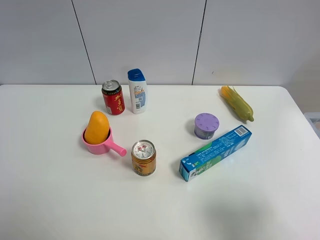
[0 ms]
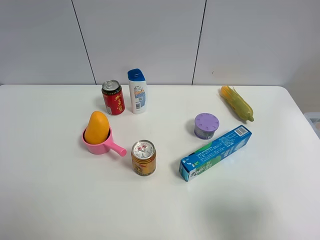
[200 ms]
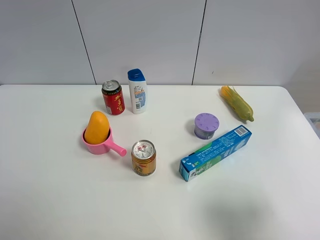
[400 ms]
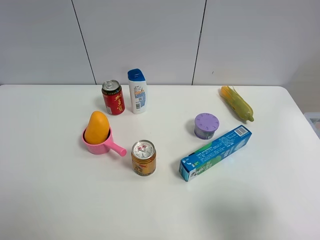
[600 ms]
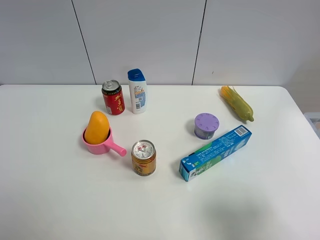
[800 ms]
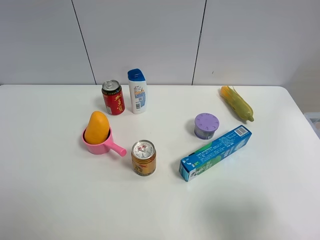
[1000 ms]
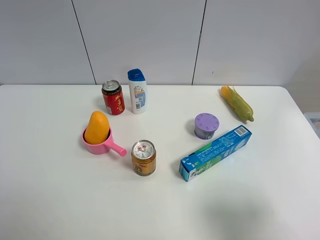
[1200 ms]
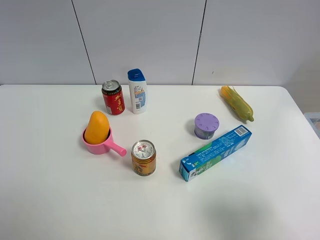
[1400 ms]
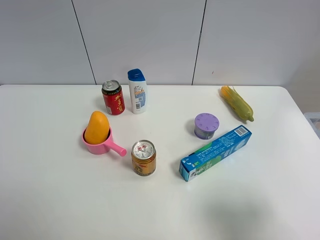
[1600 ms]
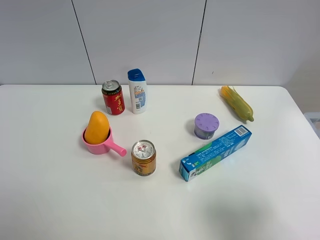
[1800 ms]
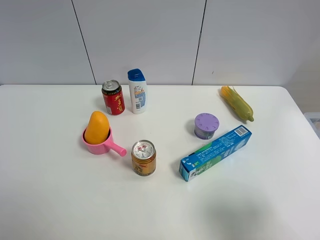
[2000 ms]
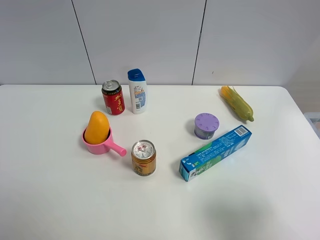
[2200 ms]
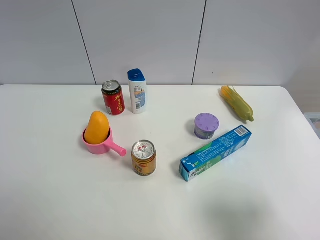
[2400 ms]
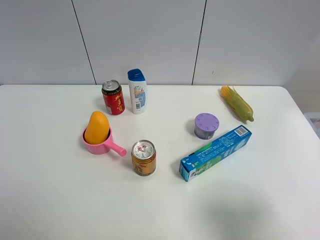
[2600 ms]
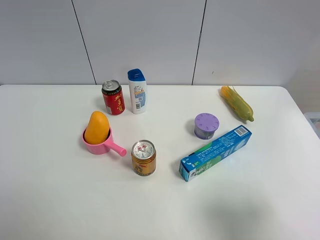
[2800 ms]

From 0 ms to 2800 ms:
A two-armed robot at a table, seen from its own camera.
Task of the whole recording: the gripper move the object.
From 1400 ms to 2800 ms: Neither gripper changes place.

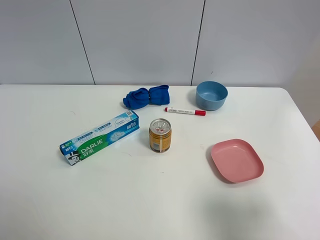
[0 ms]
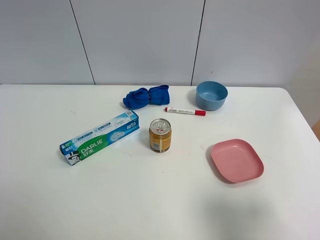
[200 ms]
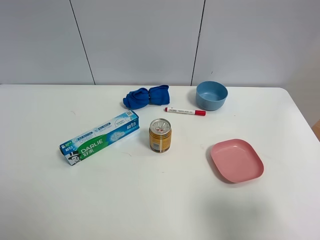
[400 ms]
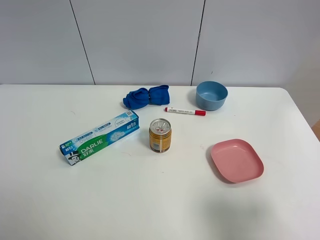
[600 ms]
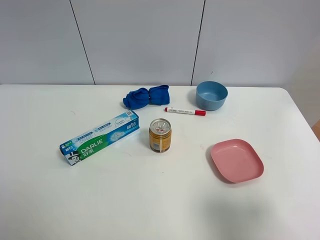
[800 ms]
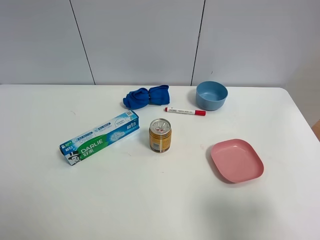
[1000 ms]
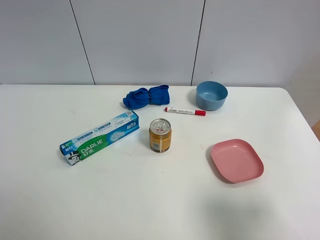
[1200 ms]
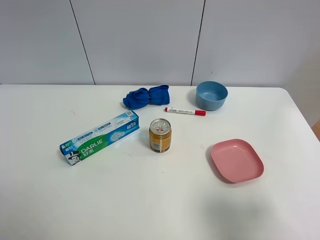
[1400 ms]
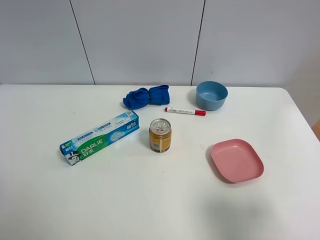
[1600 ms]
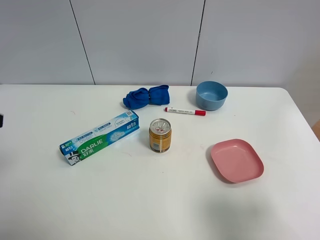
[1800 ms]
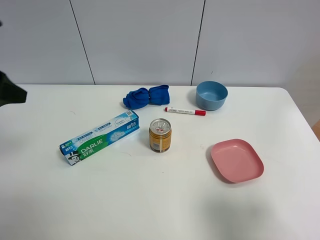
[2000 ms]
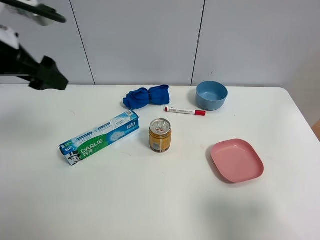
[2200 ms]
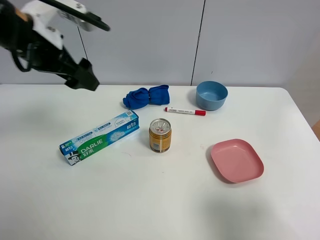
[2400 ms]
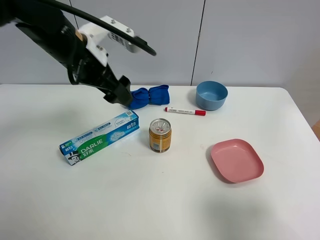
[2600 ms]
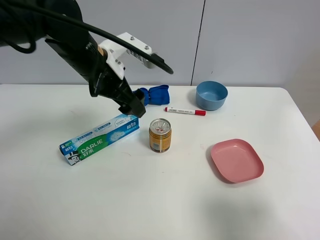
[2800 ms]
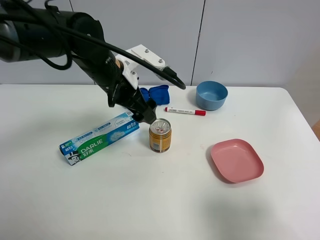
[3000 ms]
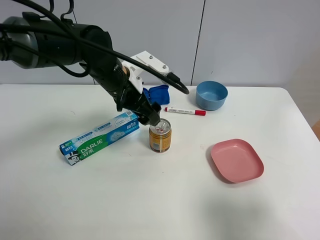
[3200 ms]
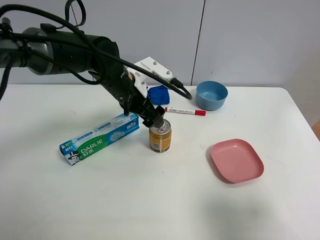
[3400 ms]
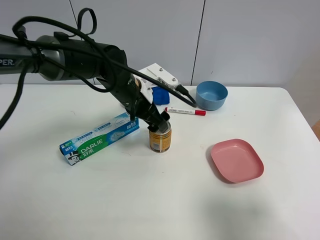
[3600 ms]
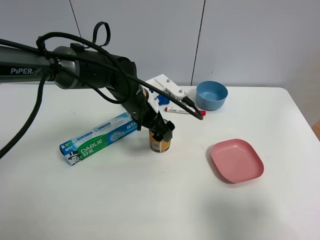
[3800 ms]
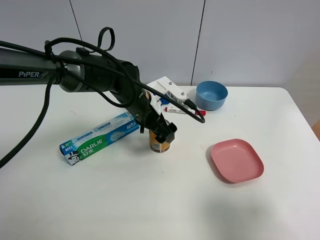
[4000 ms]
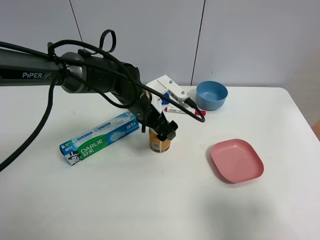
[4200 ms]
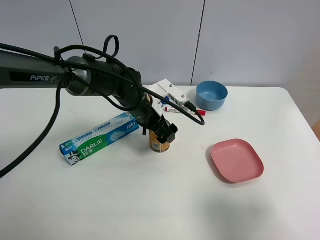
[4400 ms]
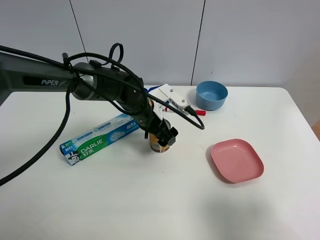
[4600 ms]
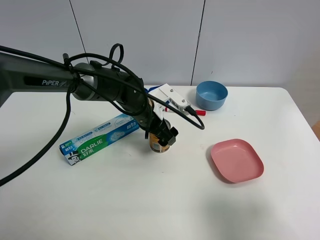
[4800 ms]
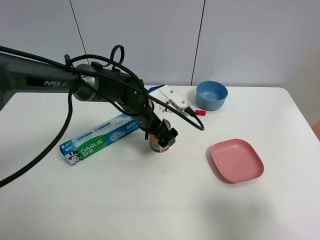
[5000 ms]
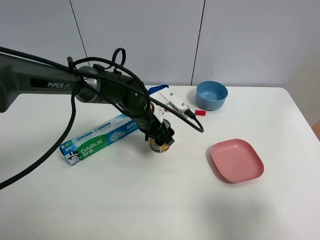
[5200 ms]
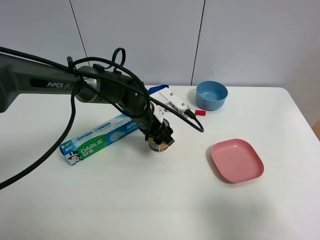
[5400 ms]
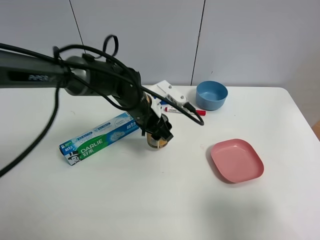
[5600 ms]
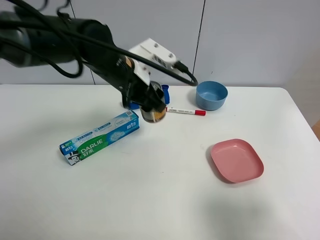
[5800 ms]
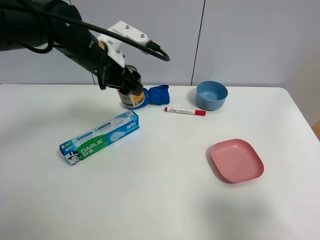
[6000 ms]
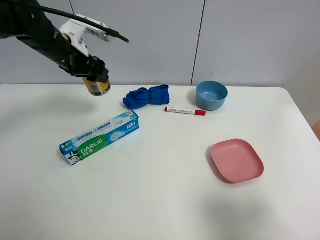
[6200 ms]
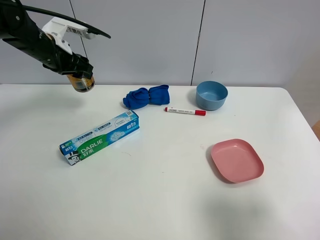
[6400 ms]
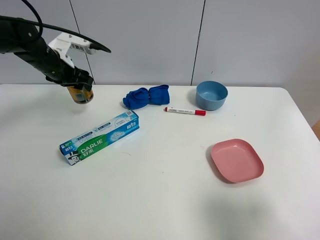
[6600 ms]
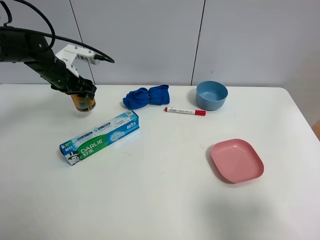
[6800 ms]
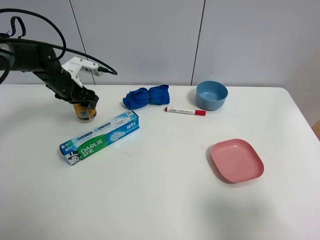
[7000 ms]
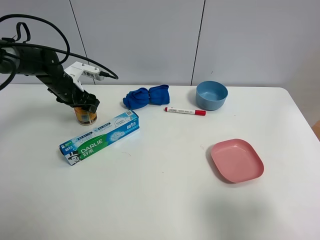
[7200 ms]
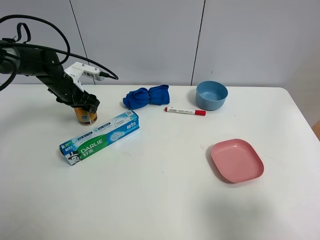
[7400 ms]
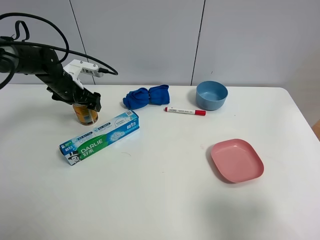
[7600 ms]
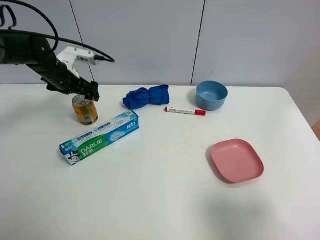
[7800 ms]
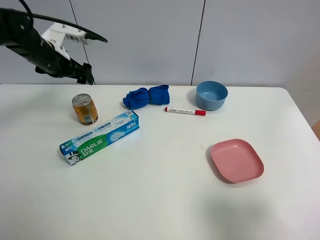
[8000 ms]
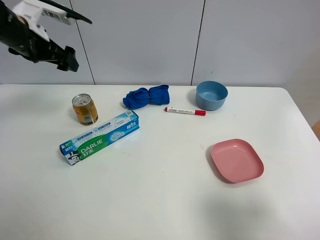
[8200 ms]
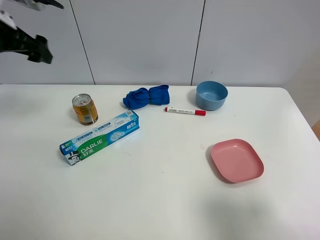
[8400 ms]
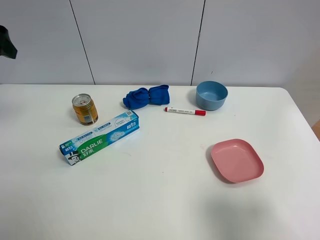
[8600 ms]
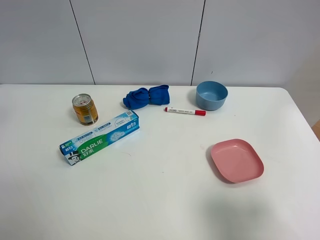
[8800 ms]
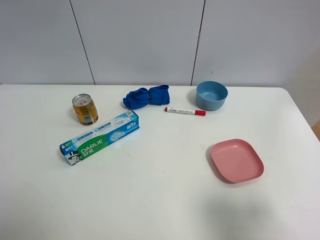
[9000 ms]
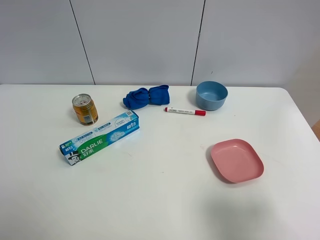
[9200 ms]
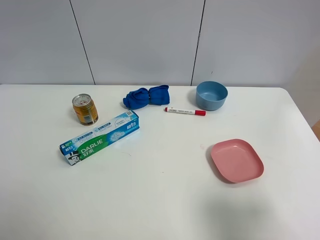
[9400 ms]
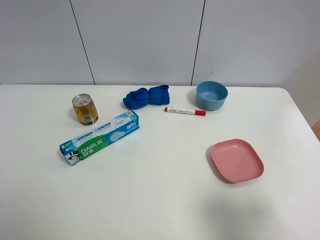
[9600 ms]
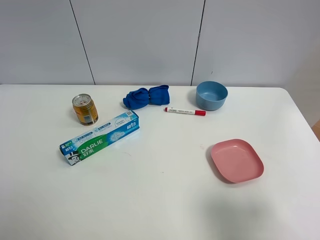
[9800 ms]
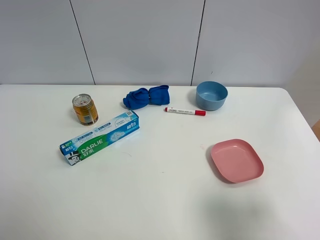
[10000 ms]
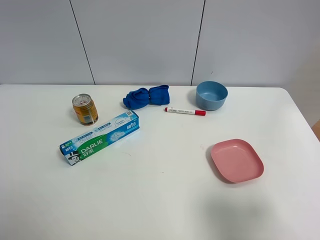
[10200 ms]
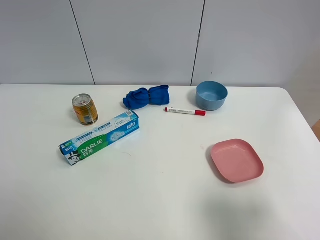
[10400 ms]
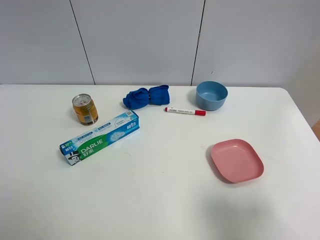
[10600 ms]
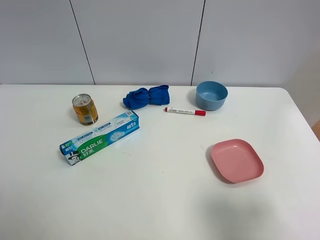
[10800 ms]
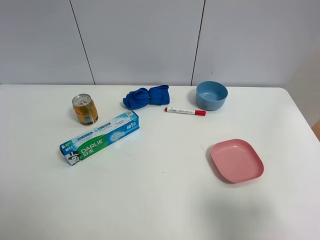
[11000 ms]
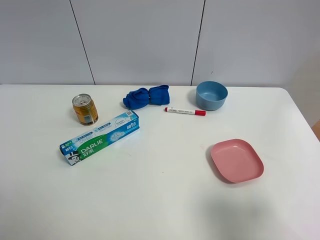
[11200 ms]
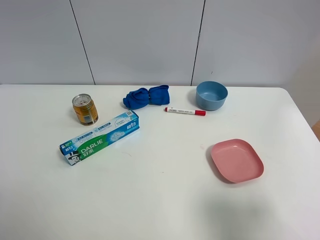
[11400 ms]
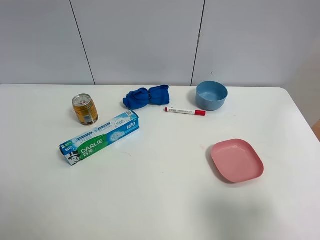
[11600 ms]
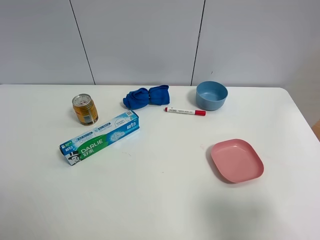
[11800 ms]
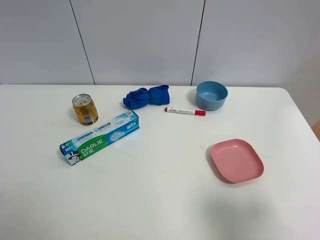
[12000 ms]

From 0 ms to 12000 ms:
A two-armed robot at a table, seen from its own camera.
Task of the whole recording: the gripper move the object.
Step, from 0 ms to 5400 ms: Grasp the red bull with the left gripper.
Step, from 5600 ms to 7600 ms: Place the red bull on the table with the left gripper.
From 1600 ms to 3000 ms: The left gripper moves forward and to the right, about 35 cm.
From 3000 ms to 4400 ms: The left gripper goes approximately 10 cm downward.
From 4400 ms to 6000 ms: The left gripper heads upward and to the left, covering roughly 15 cm, and closes its fingers.
From 6000 ms to 7600 ms: The left gripper shifts some 20 cm to the left, downward and forward, and opens its fingers.
From 7600 ms to 9000 ms: The left gripper heads upward and backward, covering about 40 cm.

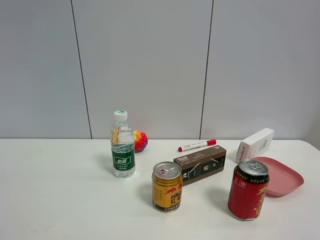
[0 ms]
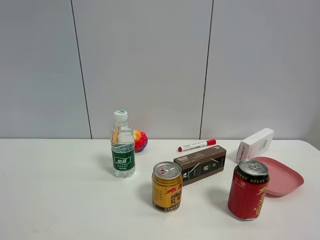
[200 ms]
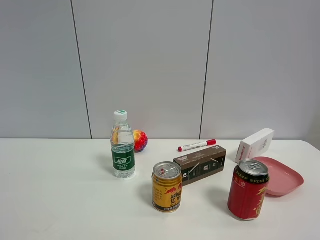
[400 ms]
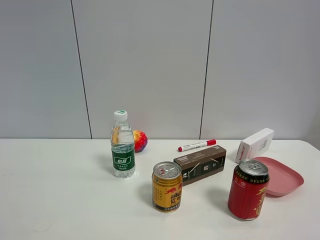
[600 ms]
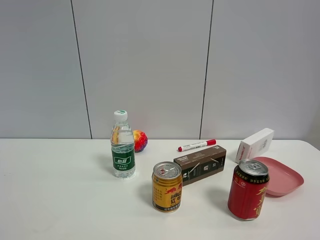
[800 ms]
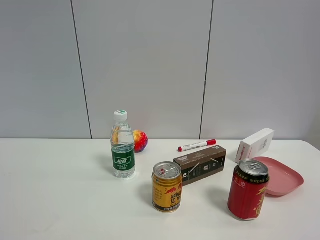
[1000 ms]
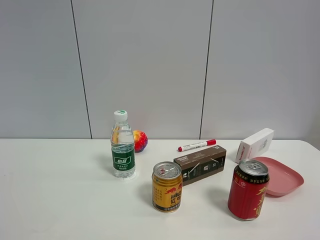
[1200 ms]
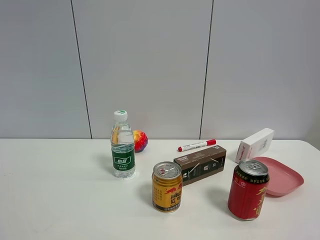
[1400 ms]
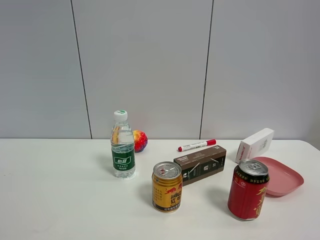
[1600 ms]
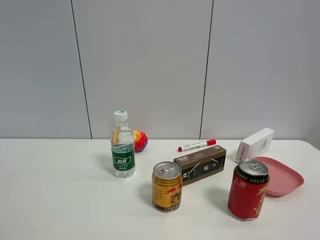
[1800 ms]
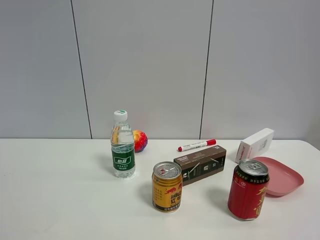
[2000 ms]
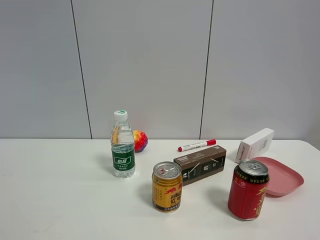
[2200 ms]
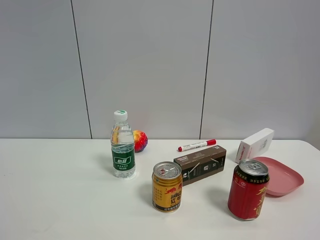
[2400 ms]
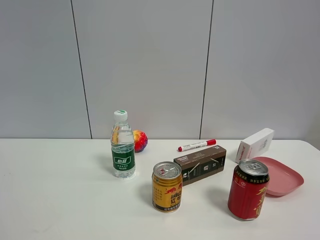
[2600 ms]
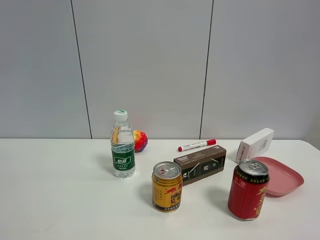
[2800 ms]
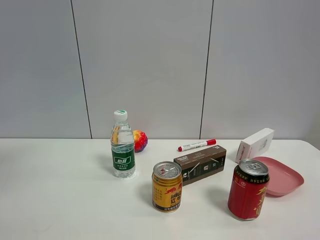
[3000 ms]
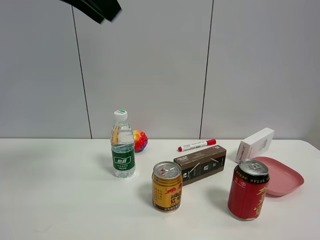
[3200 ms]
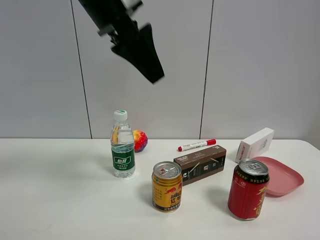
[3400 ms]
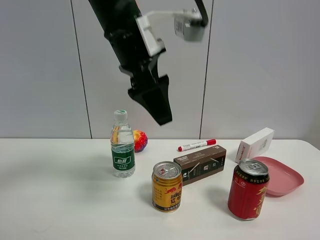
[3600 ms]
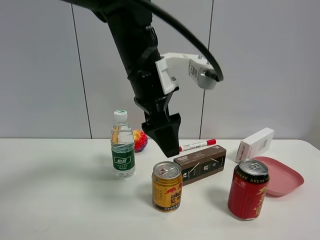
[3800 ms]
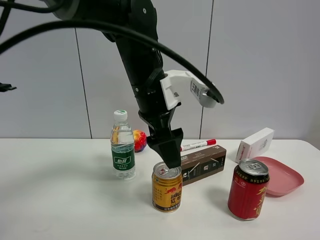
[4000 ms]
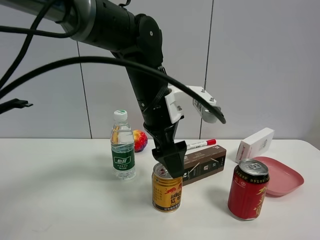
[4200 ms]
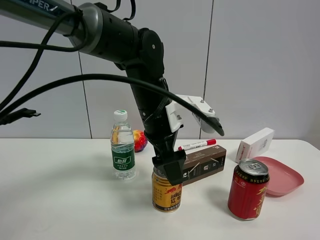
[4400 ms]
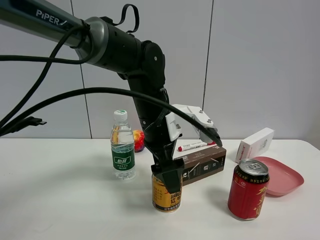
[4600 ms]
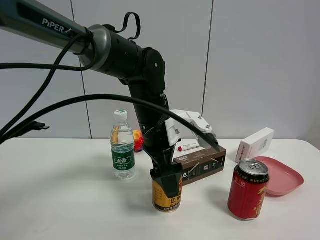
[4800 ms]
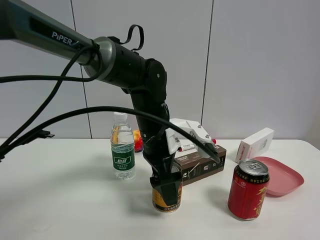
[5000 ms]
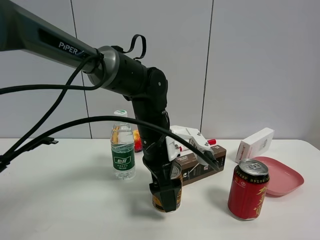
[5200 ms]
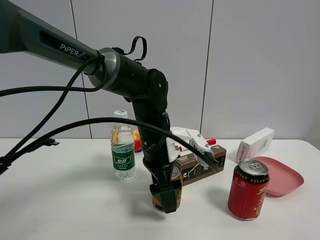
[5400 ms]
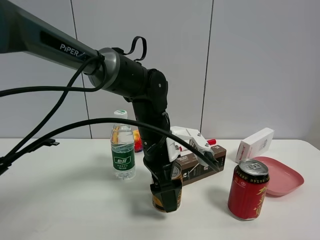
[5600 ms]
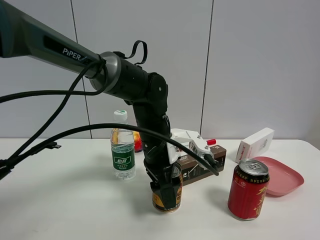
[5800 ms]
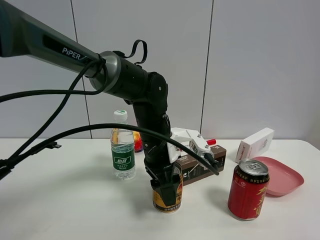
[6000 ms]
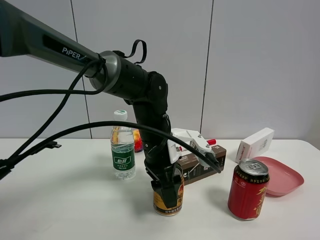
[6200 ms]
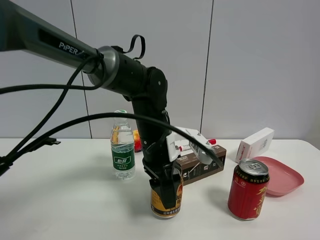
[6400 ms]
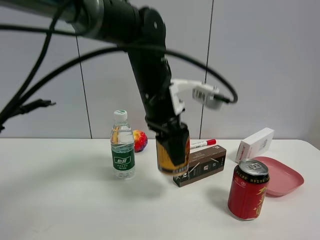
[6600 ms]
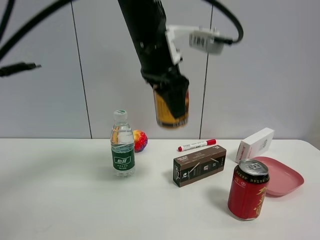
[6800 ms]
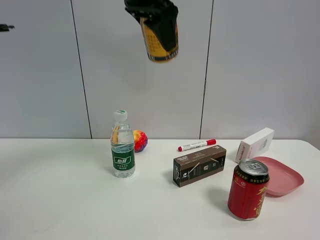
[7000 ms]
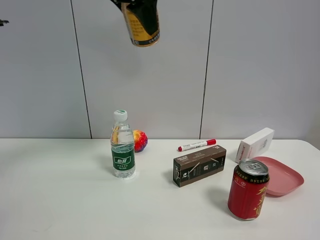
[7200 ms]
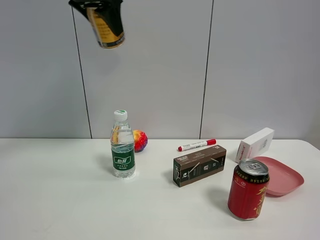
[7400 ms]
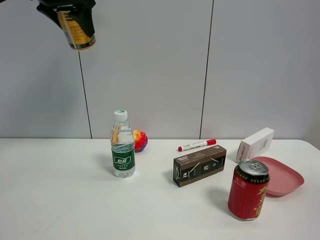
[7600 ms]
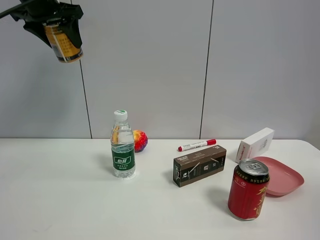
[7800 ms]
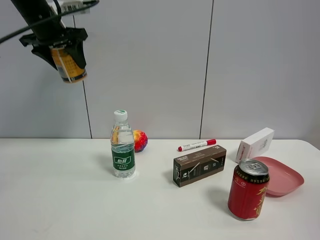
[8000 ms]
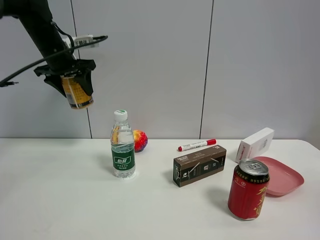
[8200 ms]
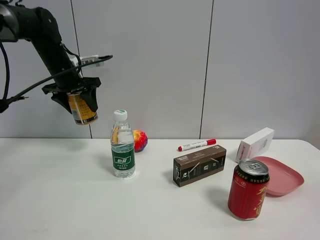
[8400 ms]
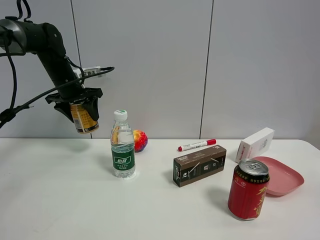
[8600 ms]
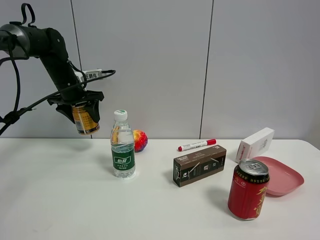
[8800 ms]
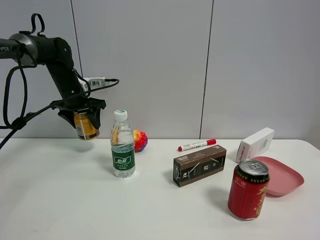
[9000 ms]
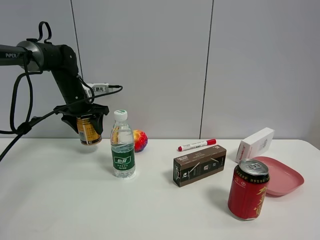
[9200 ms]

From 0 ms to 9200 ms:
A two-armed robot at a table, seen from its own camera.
Task of the whole recording: the gripper move the object.
Step, from 0 ms to 5800 ms: Grasp the red bull with the left gripper.
From 0 ms to 1600 ms: Neither gripper changes place.
From 3000 ms to 4600 ms: The left gripper is displaced downward and to the right by approximately 35 cm.
From 4600 ms to 6200 ms: The left gripper closes its fingers.
From 6200 ms to 7600 ms: The left gripper is displaced upward and to the left by about 40 cm.
From 7600 ms to 9200 ms: The left gripper heads downward, covering about 25 cm.
